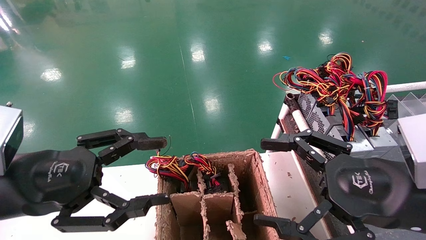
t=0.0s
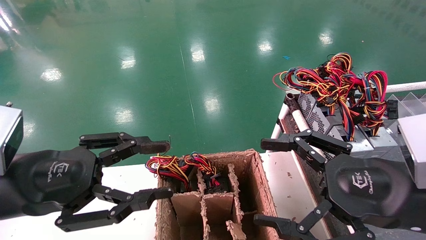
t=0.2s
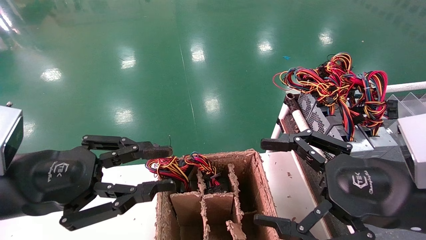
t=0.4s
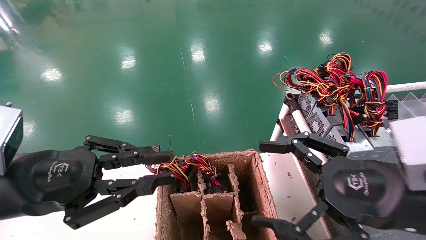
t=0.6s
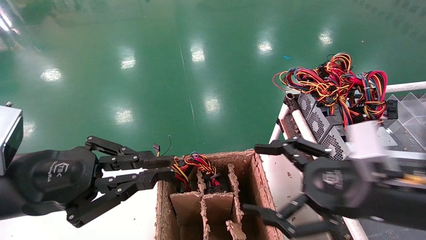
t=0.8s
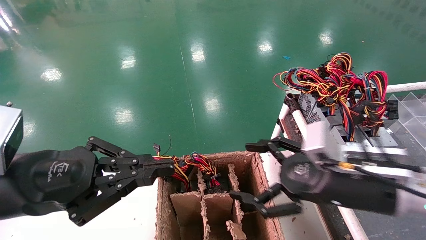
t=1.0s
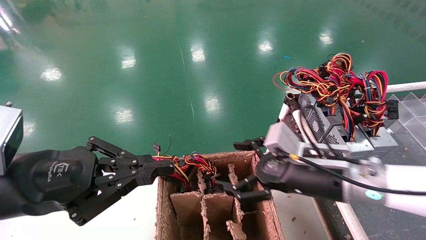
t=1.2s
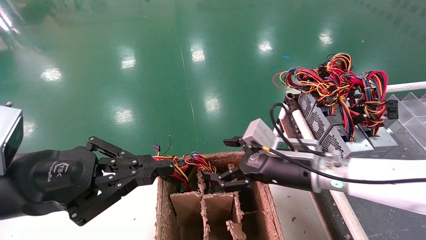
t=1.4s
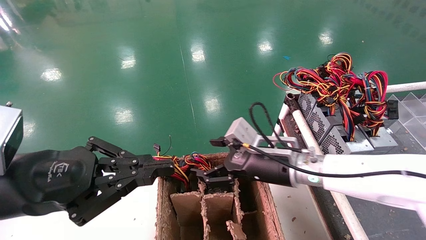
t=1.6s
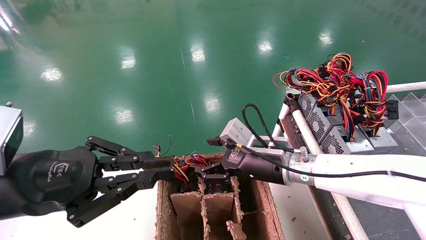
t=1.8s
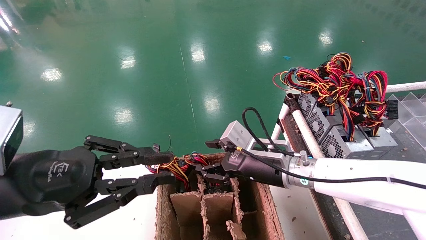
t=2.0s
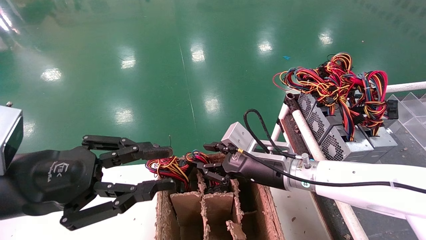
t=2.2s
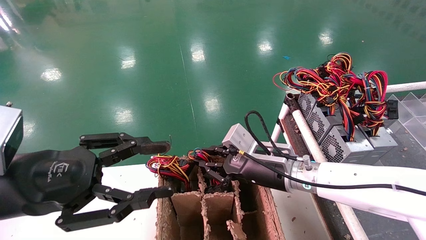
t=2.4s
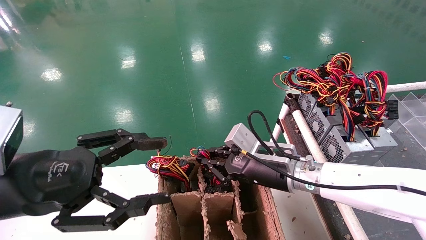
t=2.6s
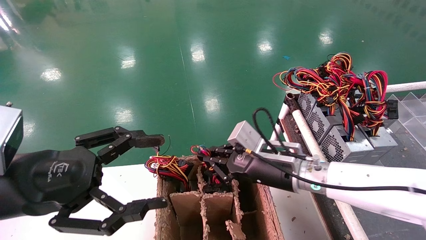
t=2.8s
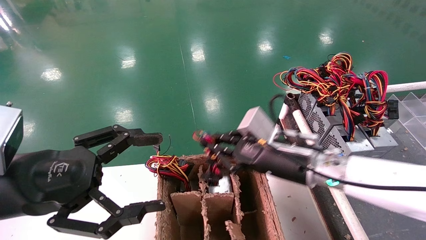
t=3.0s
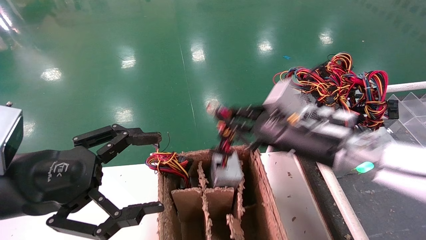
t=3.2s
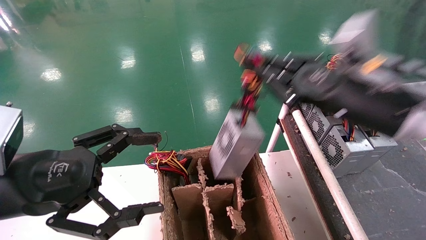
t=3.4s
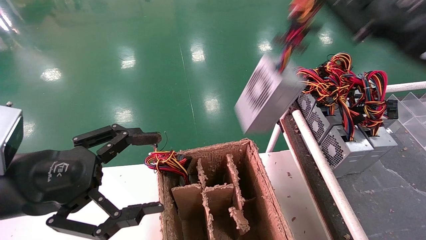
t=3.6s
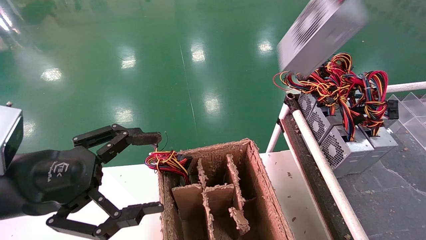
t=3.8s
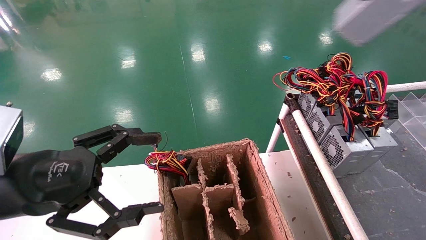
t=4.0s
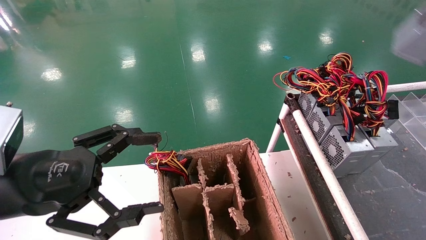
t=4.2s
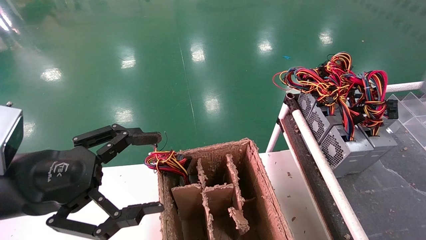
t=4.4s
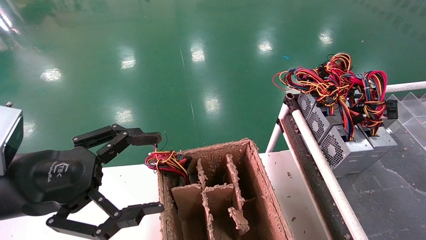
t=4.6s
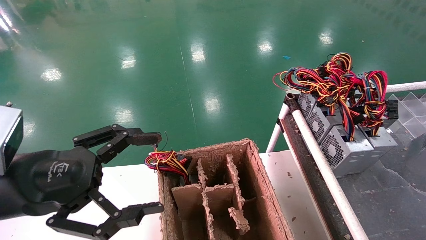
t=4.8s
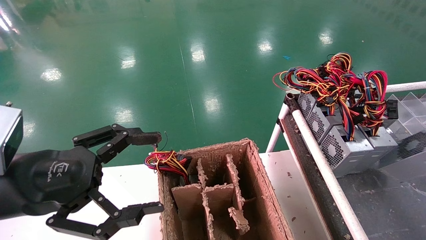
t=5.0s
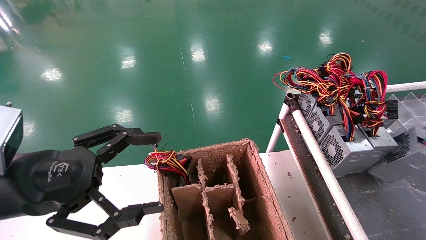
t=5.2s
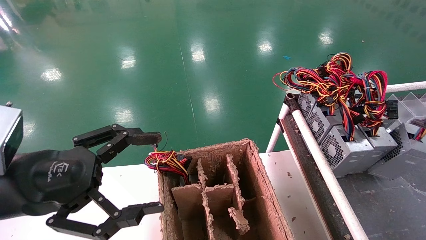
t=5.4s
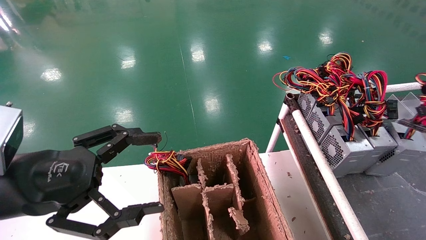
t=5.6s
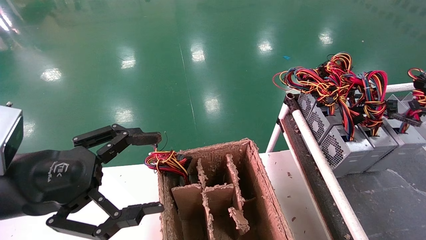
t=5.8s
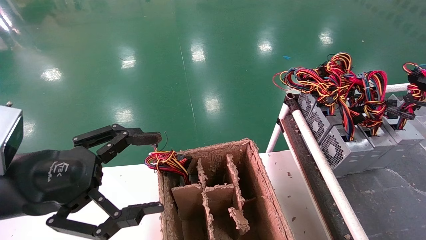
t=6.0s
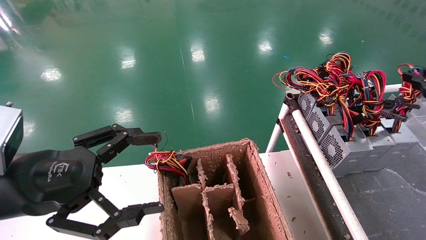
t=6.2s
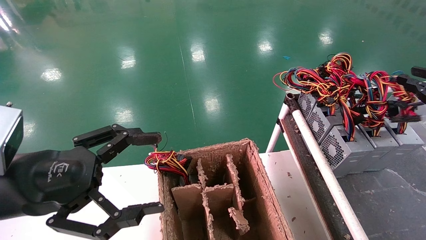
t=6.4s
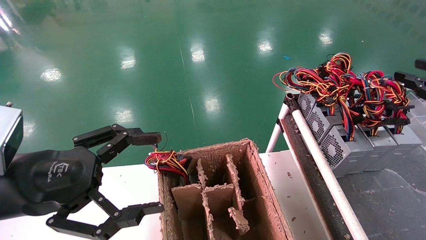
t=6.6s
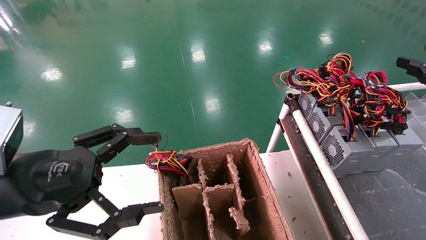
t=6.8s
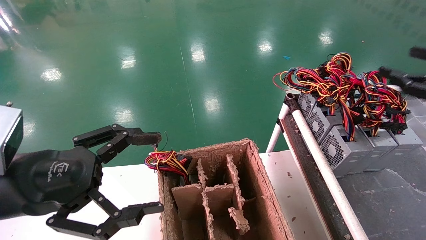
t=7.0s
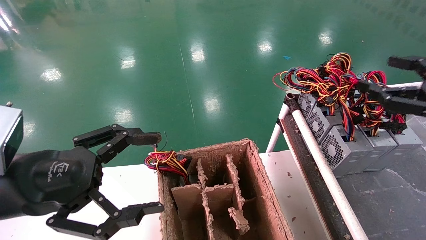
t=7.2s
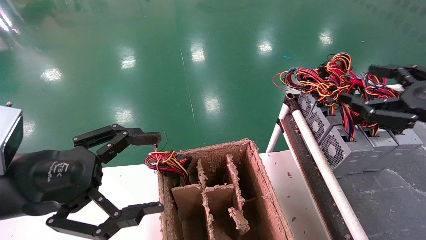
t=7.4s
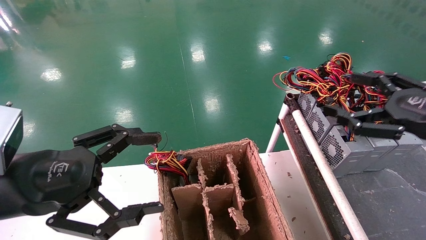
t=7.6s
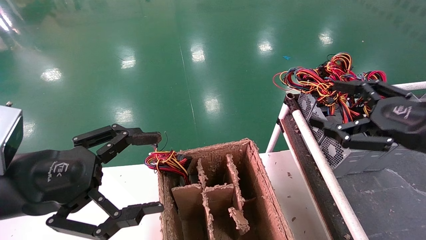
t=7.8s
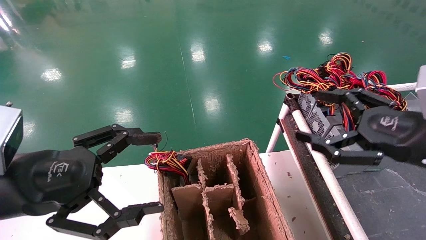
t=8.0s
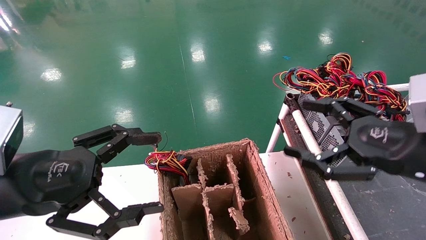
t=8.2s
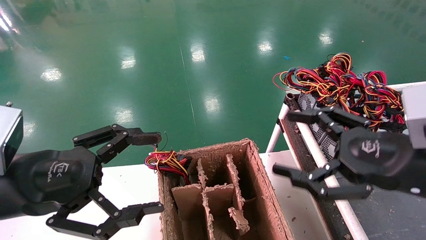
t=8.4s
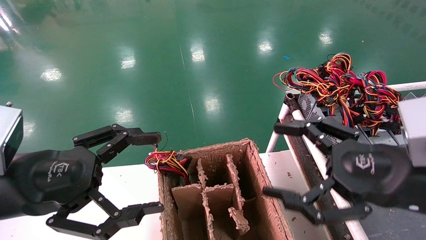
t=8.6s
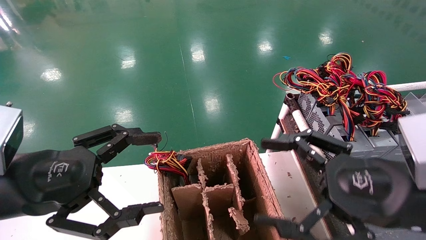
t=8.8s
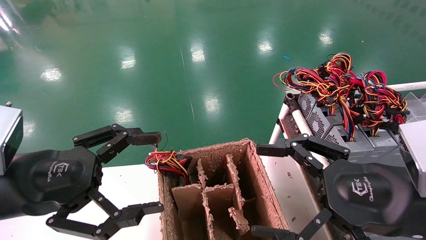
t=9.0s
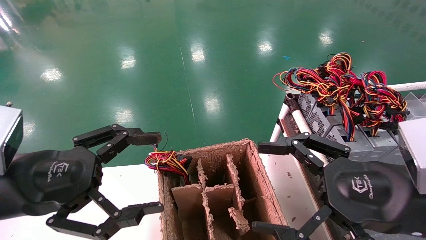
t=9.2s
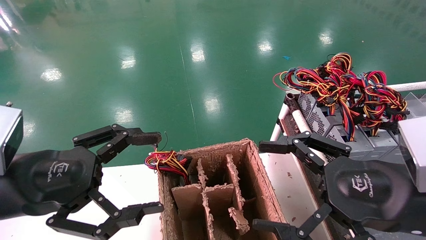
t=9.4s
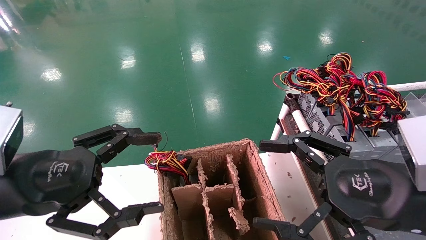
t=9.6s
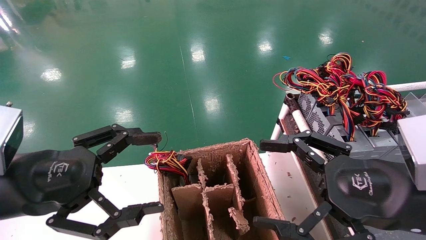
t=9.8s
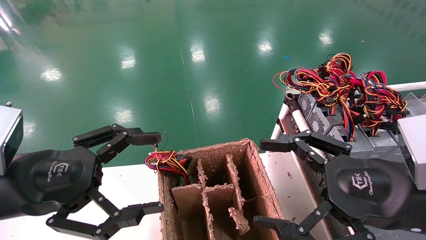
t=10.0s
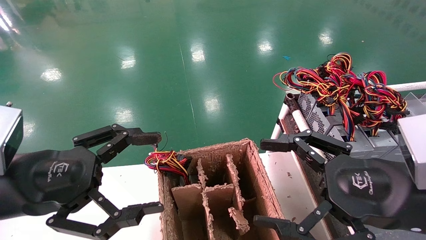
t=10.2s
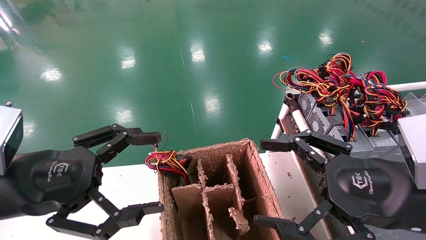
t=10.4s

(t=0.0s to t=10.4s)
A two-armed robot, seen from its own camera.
Step, t=1.0s - t=2.8s: Grab and lift the power supply from the large box.
Step, t=3.0s - t=6.4s: Place the power supply on the operating table.
t=0.0s - t=1.4s: The left gripper closes up, while the right gripper is displaced forward and to the left by approximately 20 cm.
t=1.4s - t=3.0s: The right gripper closes its fingers; the left gripper opens up.
t=3.0s - t=4.4s: The right gripper shifts roughly 40 cm to the right, upward and backward.
t=4.4s - t=6.0s: The right gripper is displaced downward and forward by roughly 15 cm.
t=6.0s - t=7.4s: The right gripper goes roughly 10 cm to the left, and opens its fingers.
t=7.4s - t=9.0s: The right gripper goes some 15 cm to the left, backward and downward.
t=9.0s - t=10.4s: The two grippers keep their place.

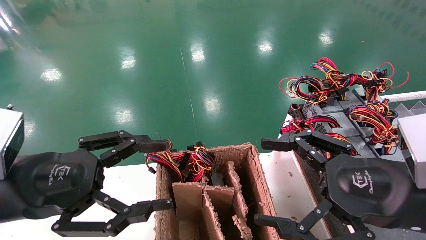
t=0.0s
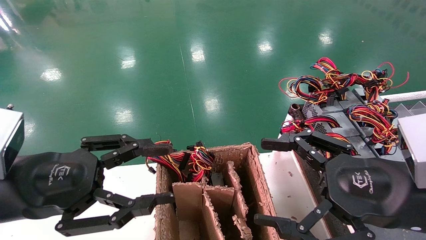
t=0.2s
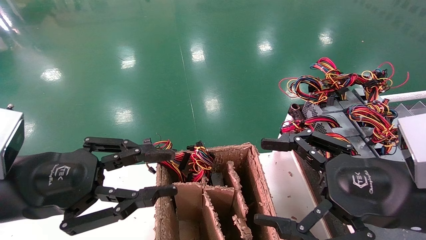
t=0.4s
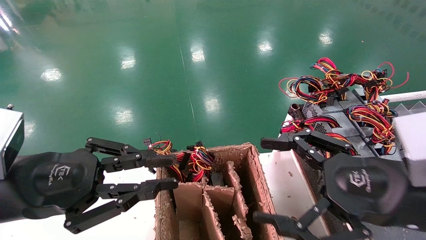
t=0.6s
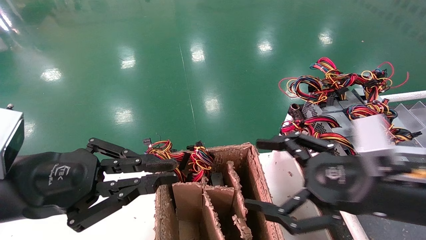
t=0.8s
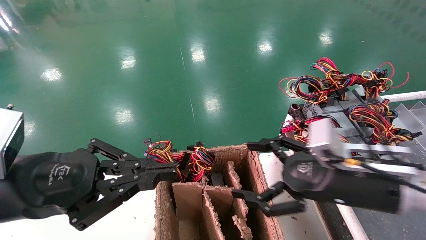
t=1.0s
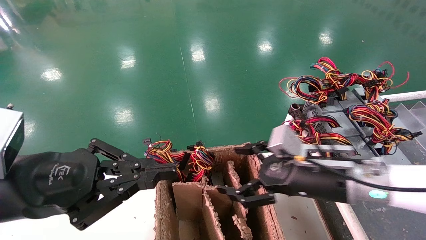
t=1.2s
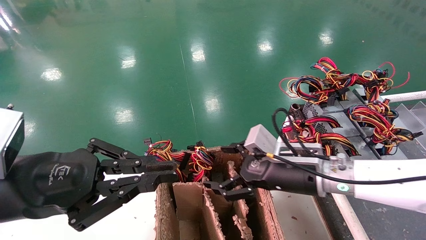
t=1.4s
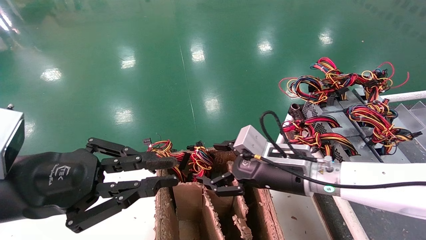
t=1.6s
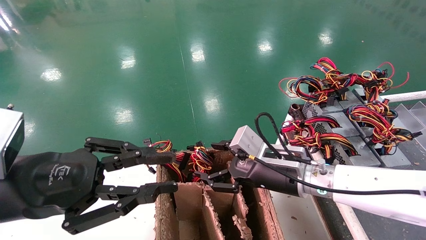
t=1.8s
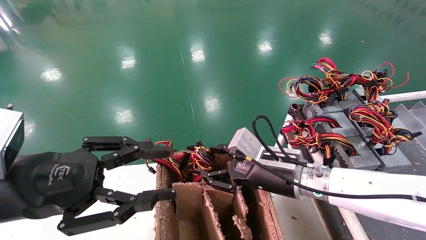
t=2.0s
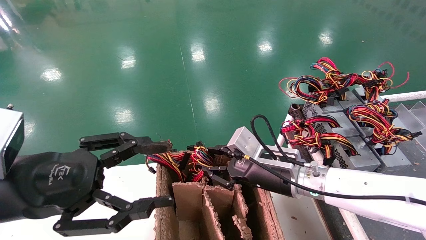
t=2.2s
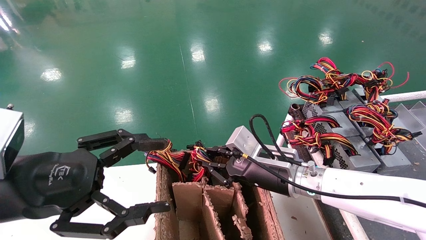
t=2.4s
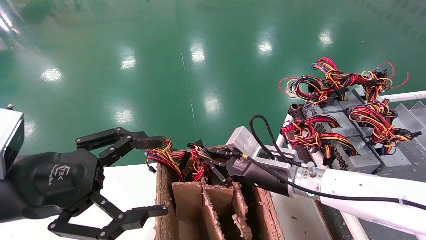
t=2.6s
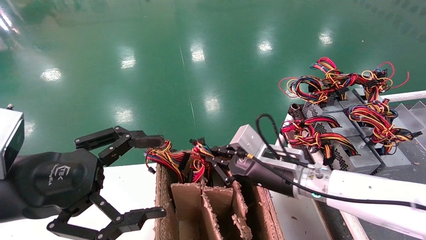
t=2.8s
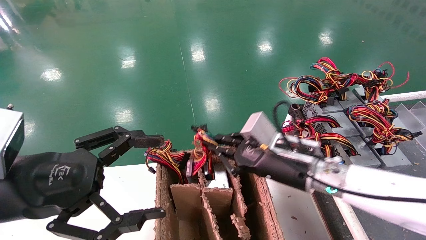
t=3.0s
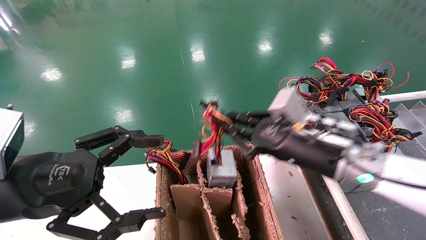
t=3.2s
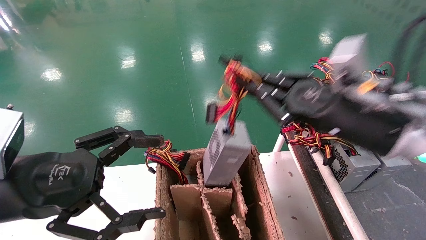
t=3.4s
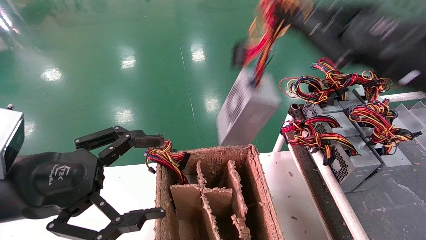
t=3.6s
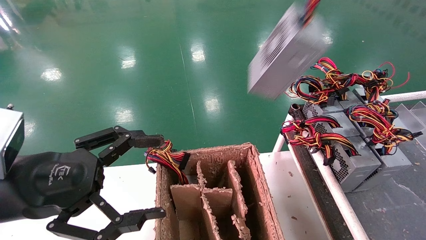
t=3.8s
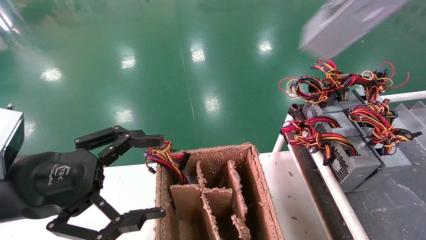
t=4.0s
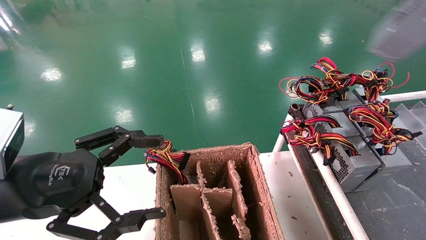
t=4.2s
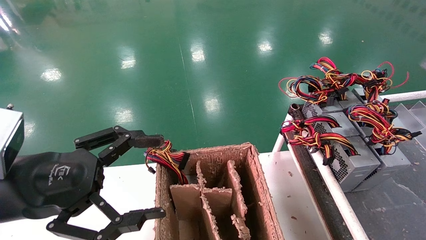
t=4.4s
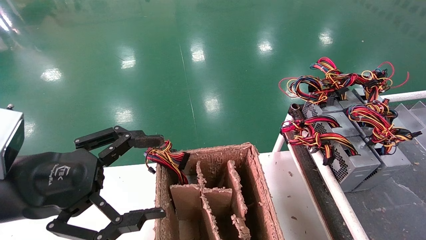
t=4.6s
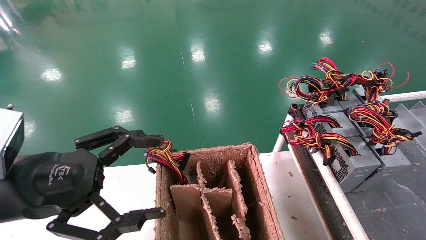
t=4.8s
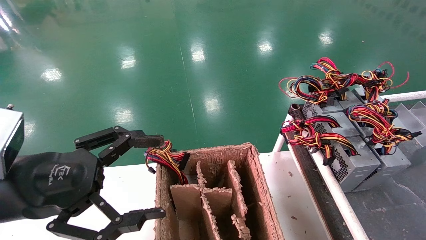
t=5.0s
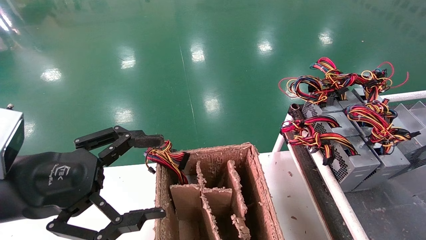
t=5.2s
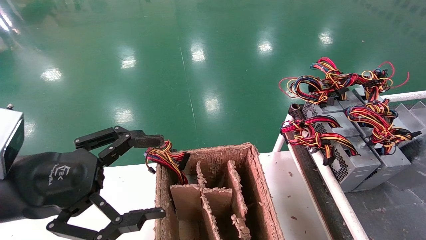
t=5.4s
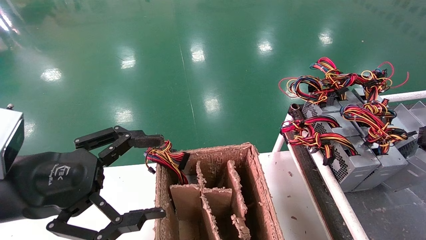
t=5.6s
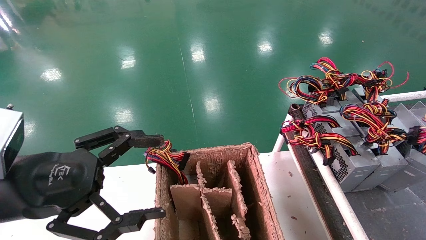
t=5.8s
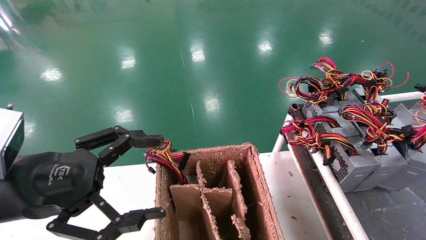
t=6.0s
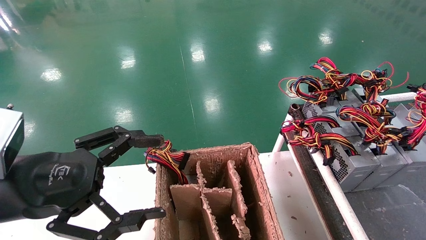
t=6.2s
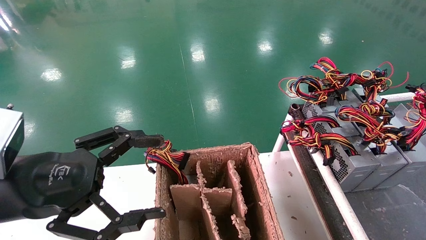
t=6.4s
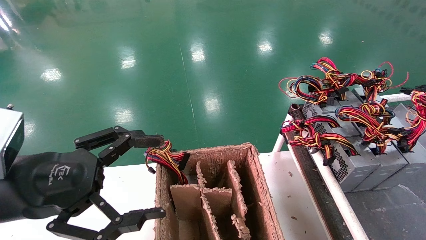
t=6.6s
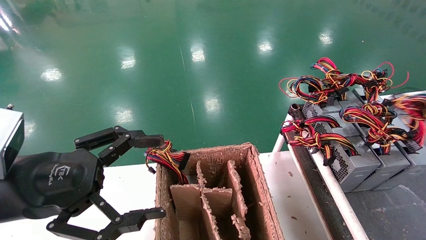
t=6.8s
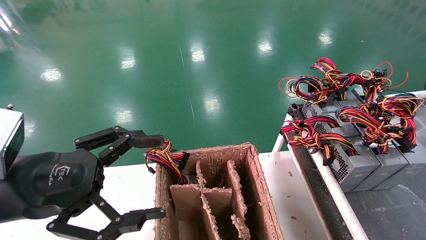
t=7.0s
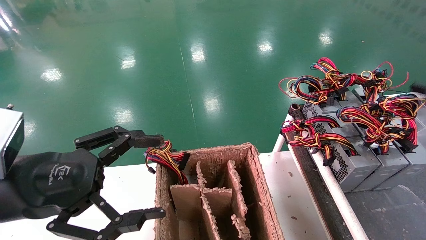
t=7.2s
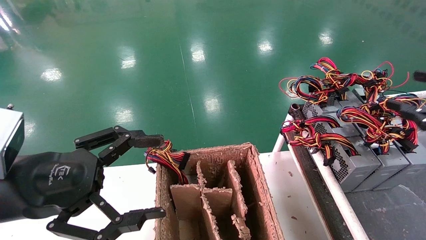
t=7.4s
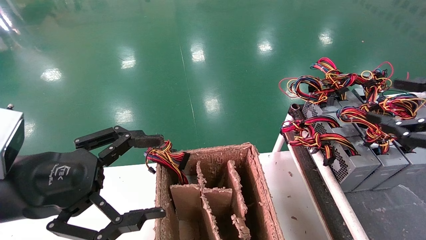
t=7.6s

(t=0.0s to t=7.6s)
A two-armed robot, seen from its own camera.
Step, t=1.0s - t=2.8s: Grab and lift the power supply from the large box.
Step, t=3.0s - t=6.6s: Place the power supply on the operating table.
t=0.0s - t=1.6s: The left gripper closes its fingers, while the right gripper moves forward, to the left and downward, approximately 20 cm.
t=1.6s - t=3.0s: The right gripper closes. Meanwhile the left gripper opens up.
t=3.0s - t=4.6s: The right gripper travels to the right, upward and backward by approximately 50 cm.
t=4.6s - t=6.0s: The right gripper shifts some 10 cm downward.
t=6.0s - t=7.6s: The right gripper moves to the left, roughly 10 cm, and opens its fingers.
